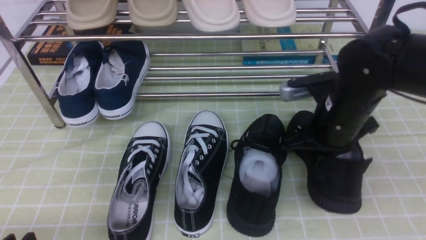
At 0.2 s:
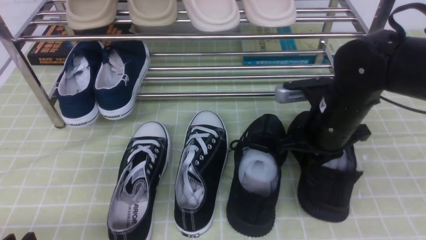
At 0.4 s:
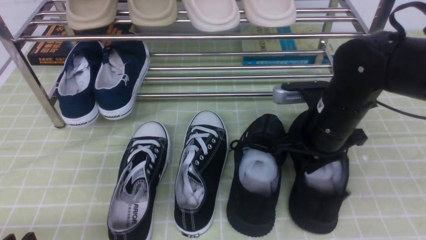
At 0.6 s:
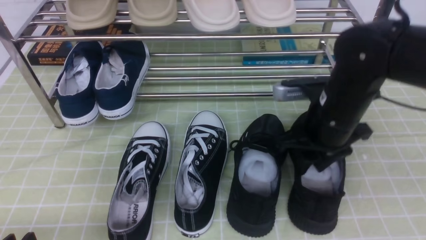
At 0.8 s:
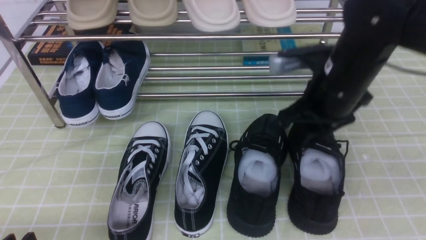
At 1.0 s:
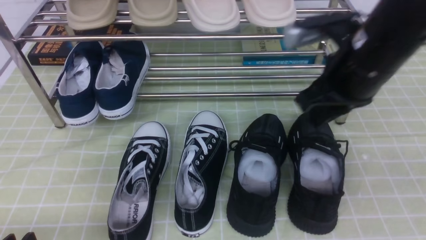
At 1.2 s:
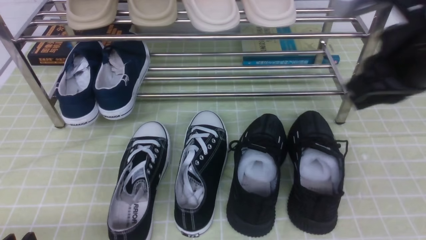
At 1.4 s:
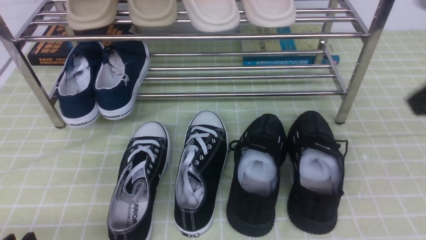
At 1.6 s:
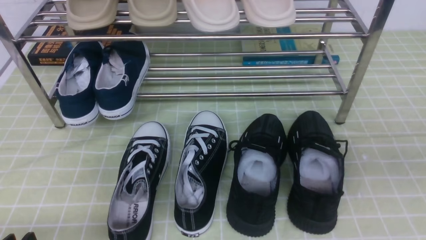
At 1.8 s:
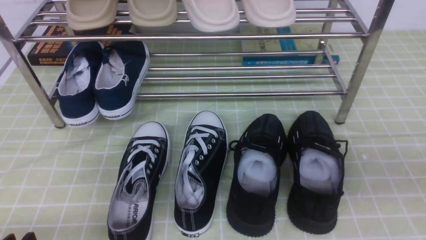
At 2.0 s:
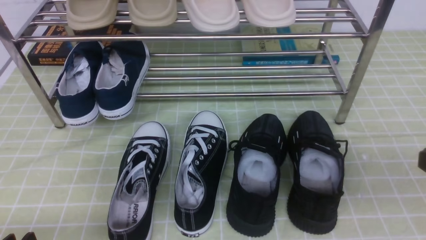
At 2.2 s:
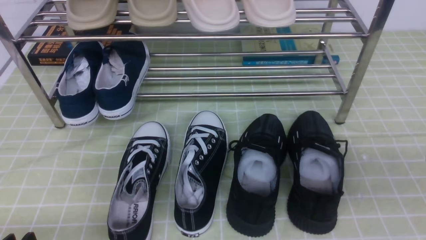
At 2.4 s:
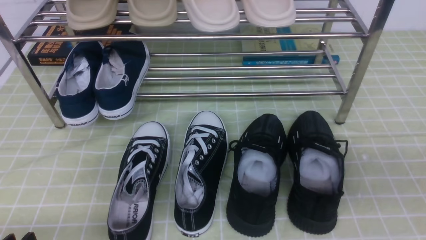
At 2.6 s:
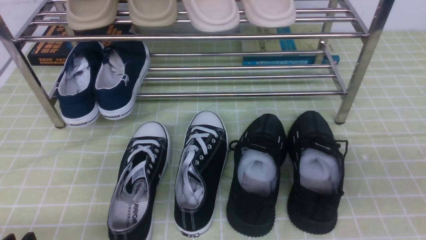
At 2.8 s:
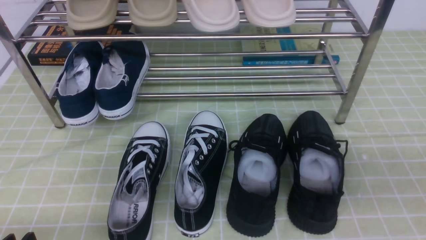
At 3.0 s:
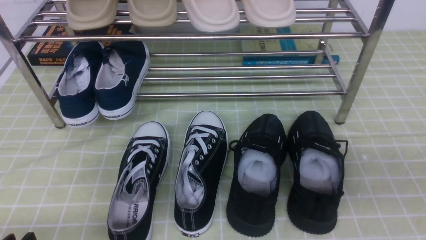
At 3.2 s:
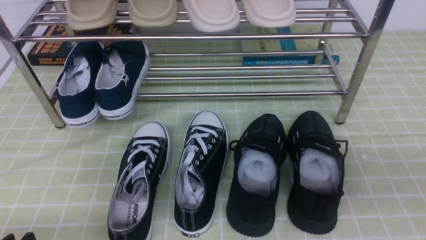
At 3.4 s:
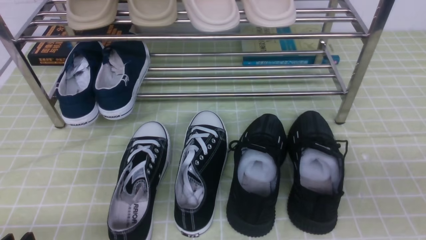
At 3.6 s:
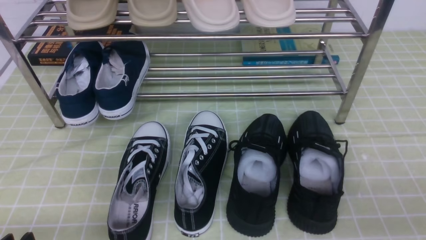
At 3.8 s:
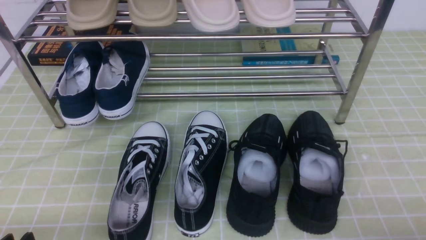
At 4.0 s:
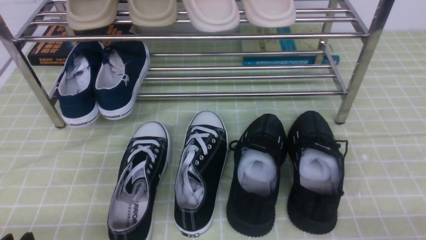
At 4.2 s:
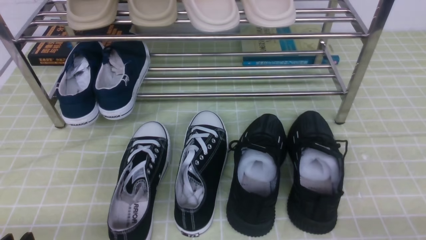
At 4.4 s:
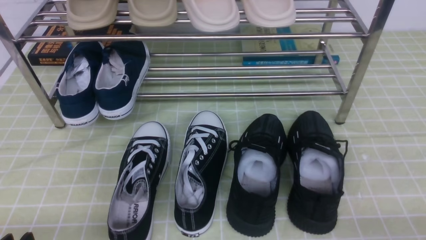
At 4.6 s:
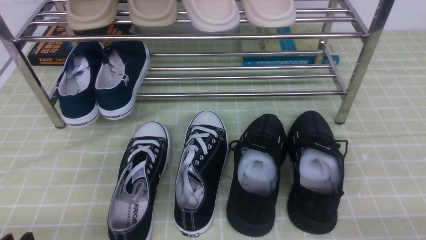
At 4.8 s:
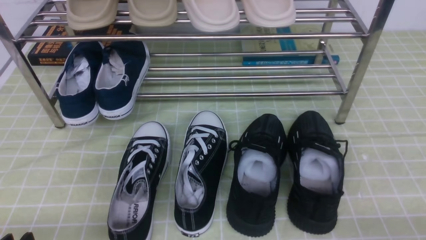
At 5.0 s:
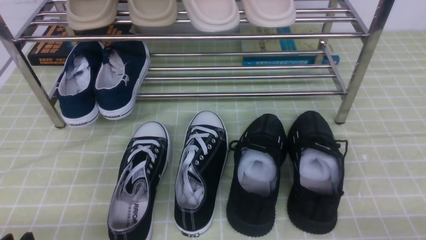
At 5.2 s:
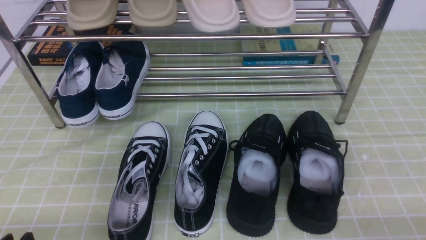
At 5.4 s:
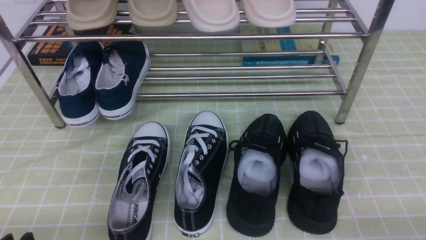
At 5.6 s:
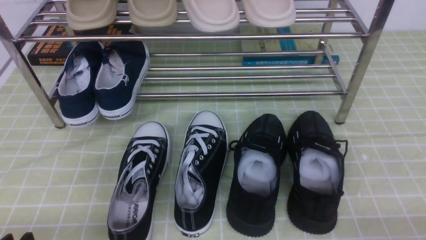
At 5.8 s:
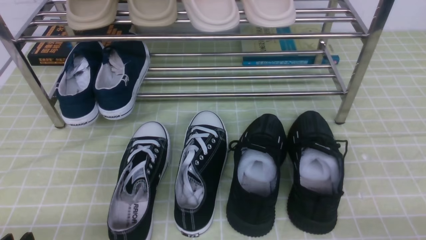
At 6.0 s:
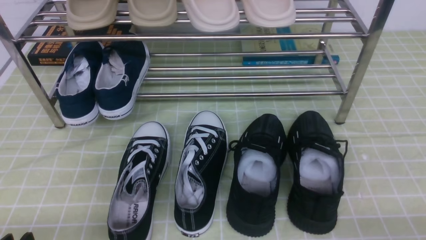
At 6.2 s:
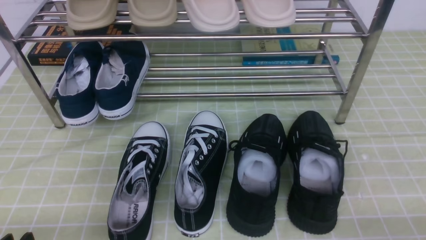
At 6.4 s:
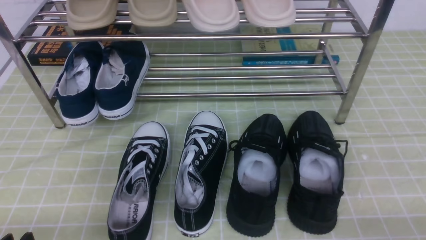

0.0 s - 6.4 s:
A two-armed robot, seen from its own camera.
0.0 s - 1.6 s: The right gripper is displaced backward, upward and to the right by approximately 25 cm, and opens, then closes again.
1.6 s - 3.2 s: The right gripper shifts about 10 cm downward.
3.2 s - 4.8 s: The right gripper shifts roughly 15 cm downward.
4.8 s - 6.4 s: Both grippers stay about where they are.

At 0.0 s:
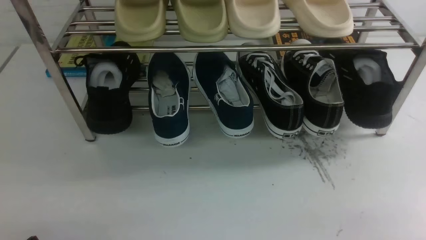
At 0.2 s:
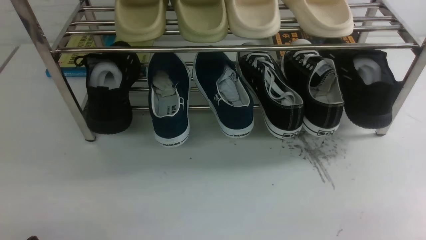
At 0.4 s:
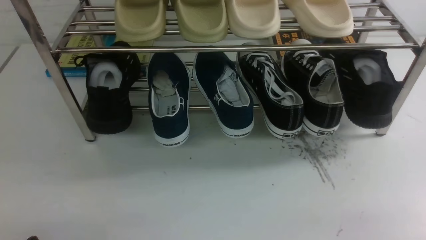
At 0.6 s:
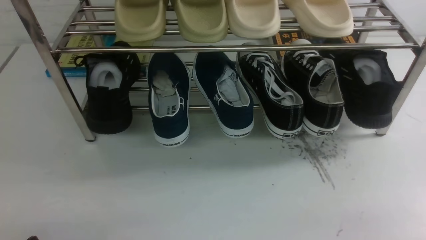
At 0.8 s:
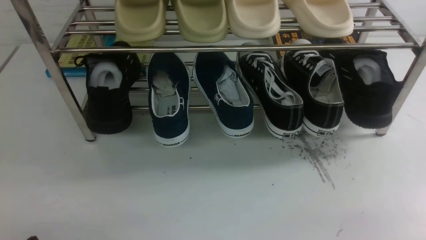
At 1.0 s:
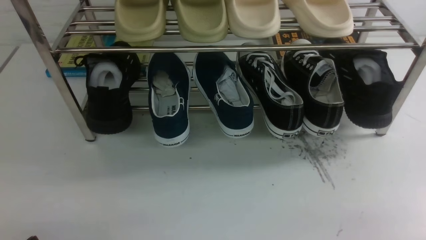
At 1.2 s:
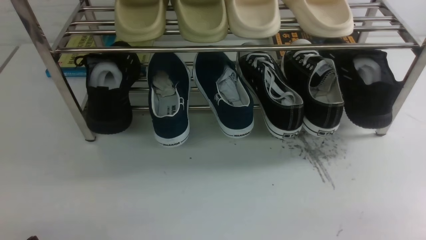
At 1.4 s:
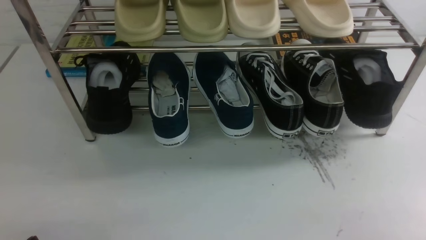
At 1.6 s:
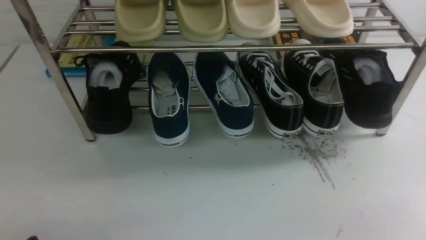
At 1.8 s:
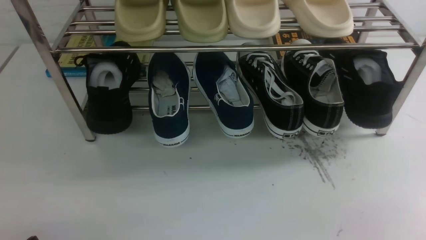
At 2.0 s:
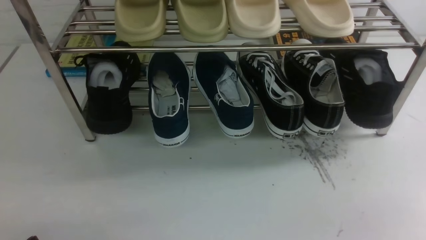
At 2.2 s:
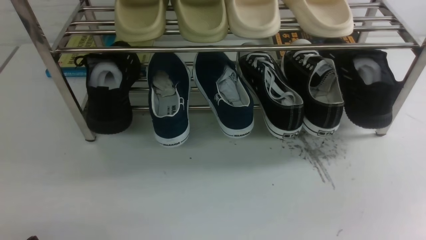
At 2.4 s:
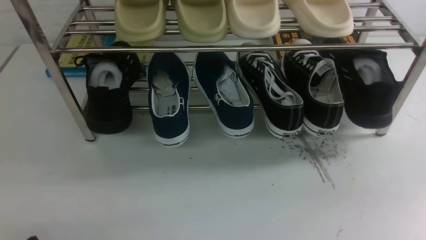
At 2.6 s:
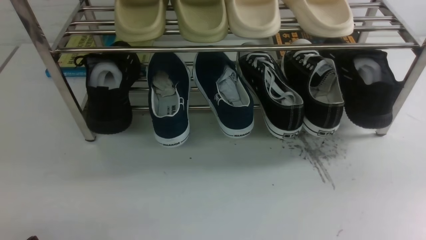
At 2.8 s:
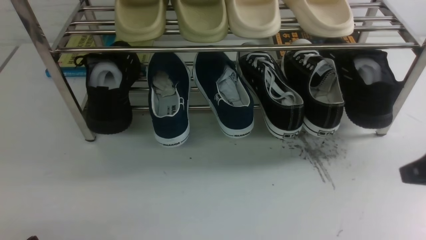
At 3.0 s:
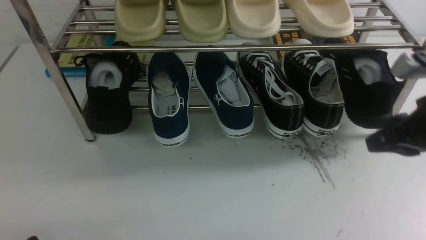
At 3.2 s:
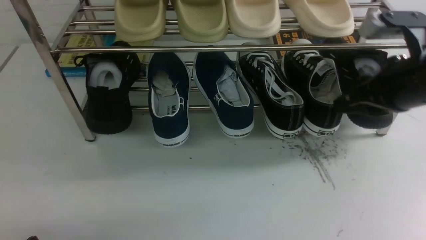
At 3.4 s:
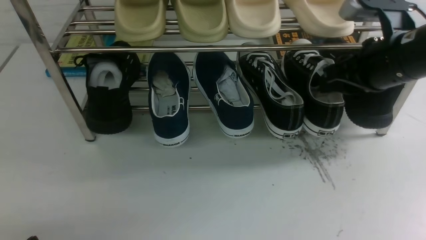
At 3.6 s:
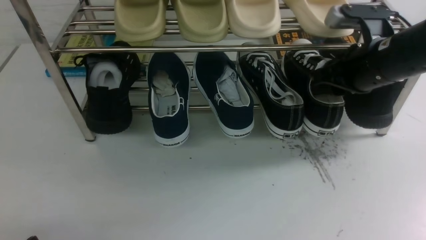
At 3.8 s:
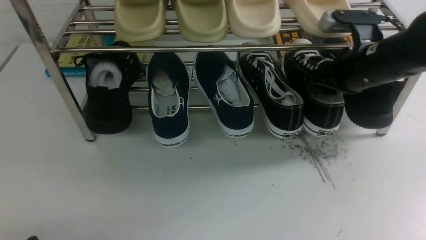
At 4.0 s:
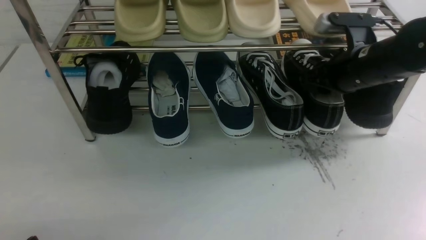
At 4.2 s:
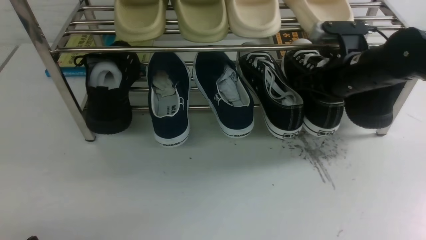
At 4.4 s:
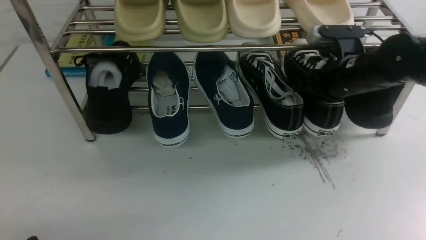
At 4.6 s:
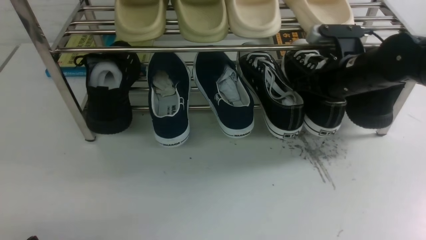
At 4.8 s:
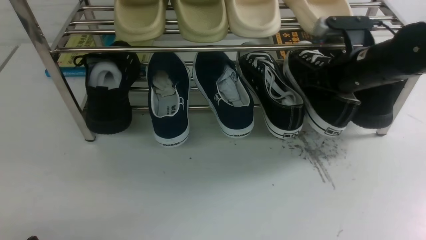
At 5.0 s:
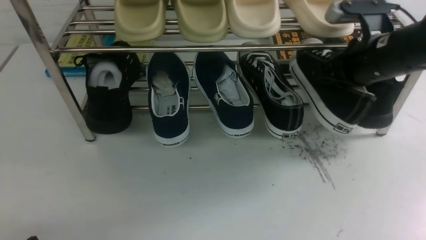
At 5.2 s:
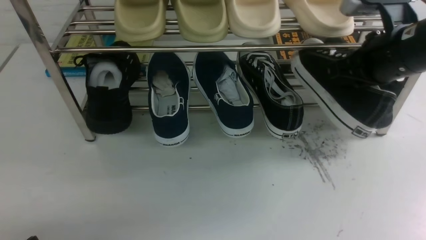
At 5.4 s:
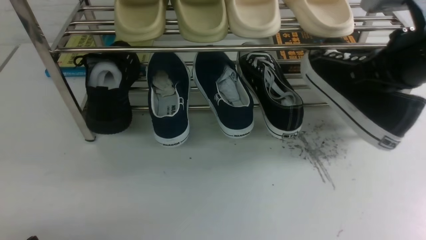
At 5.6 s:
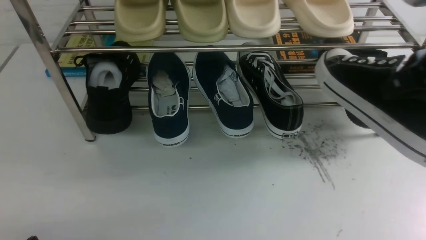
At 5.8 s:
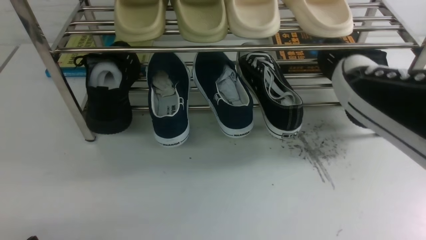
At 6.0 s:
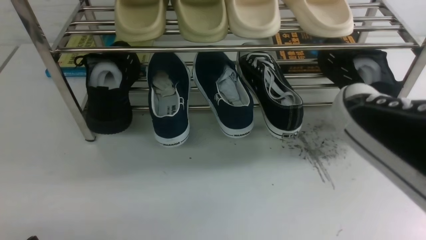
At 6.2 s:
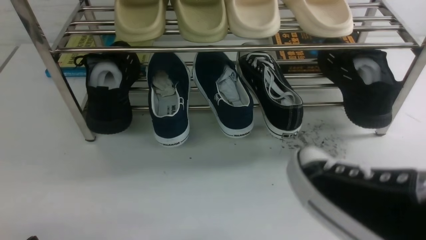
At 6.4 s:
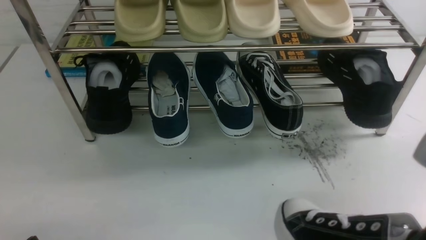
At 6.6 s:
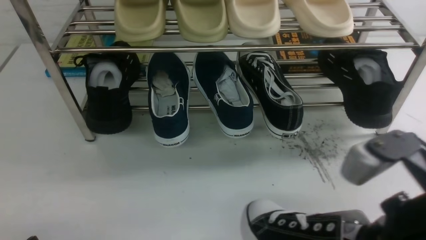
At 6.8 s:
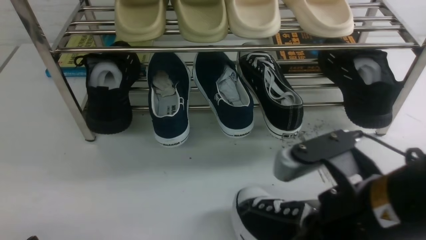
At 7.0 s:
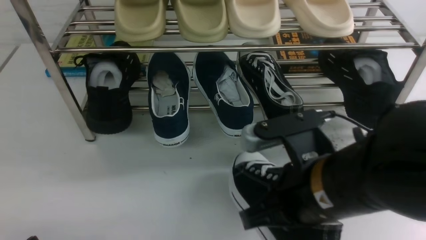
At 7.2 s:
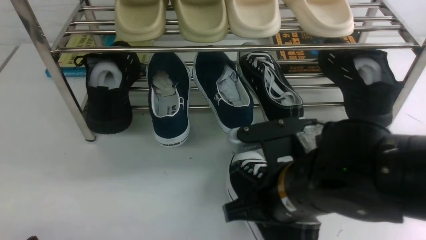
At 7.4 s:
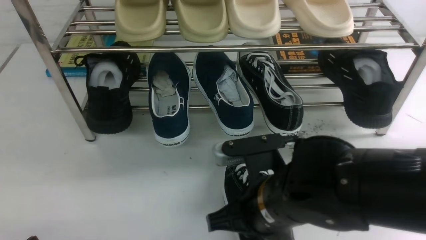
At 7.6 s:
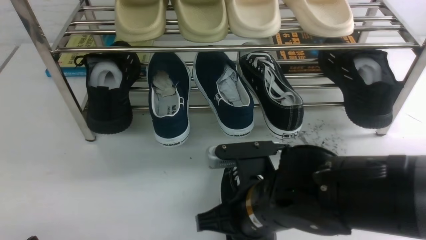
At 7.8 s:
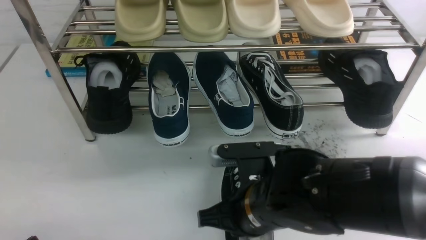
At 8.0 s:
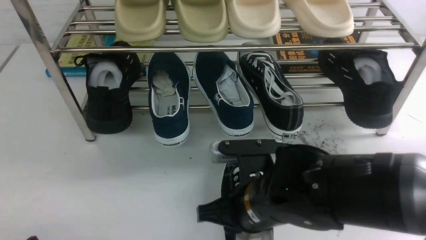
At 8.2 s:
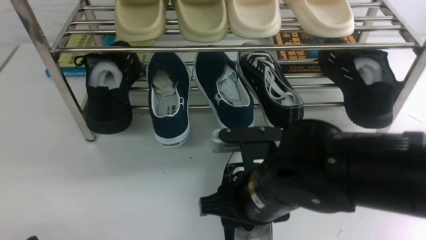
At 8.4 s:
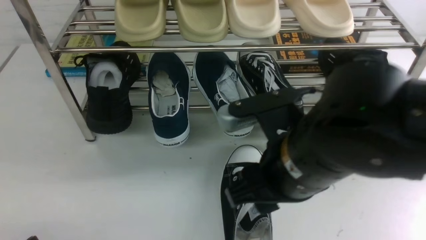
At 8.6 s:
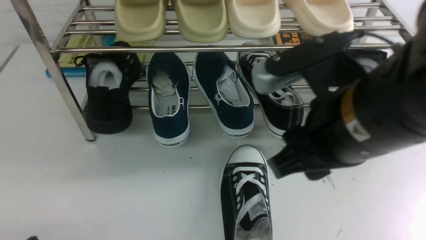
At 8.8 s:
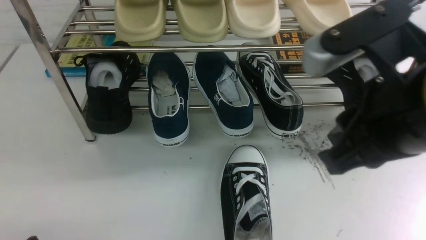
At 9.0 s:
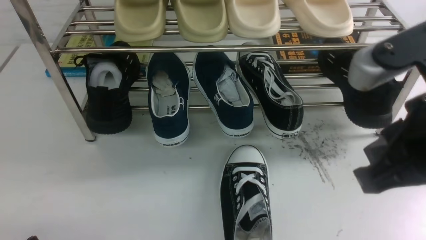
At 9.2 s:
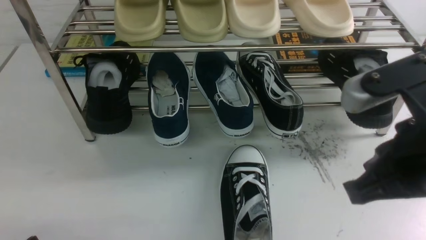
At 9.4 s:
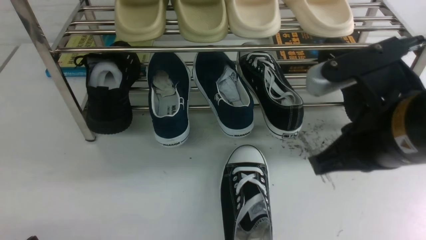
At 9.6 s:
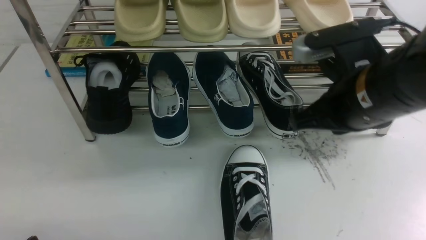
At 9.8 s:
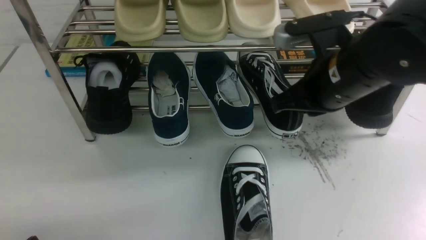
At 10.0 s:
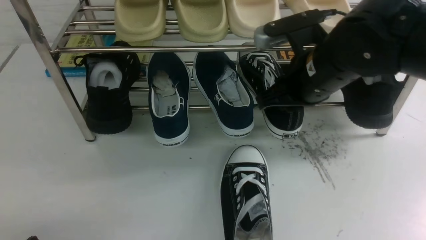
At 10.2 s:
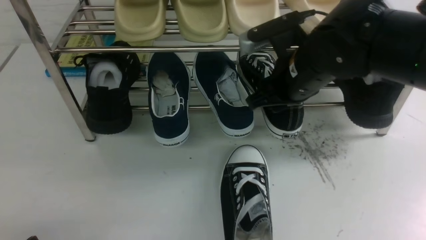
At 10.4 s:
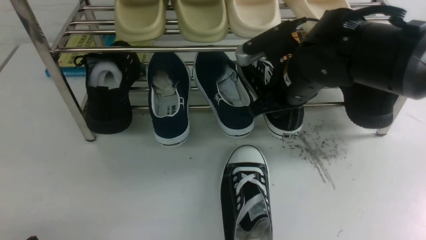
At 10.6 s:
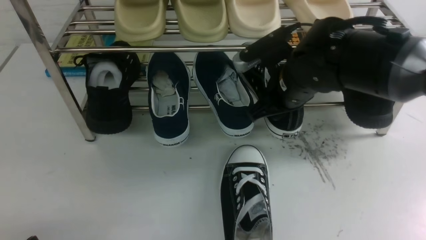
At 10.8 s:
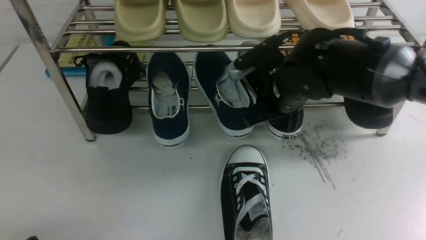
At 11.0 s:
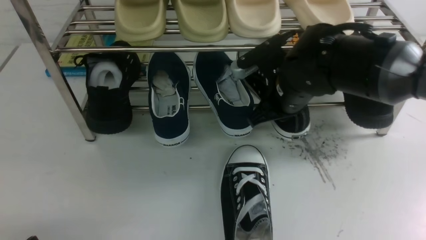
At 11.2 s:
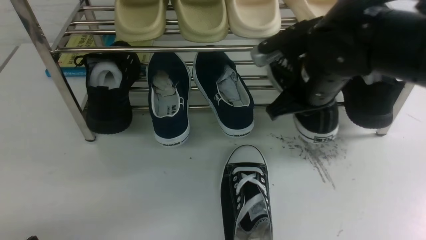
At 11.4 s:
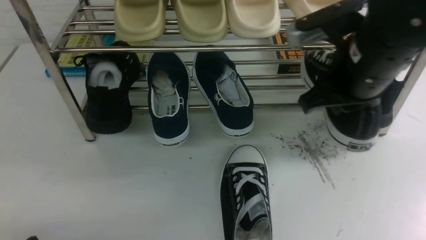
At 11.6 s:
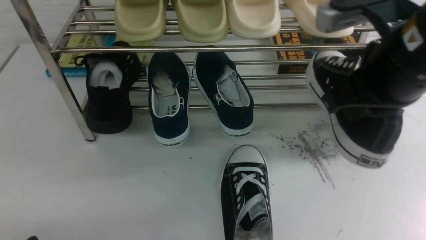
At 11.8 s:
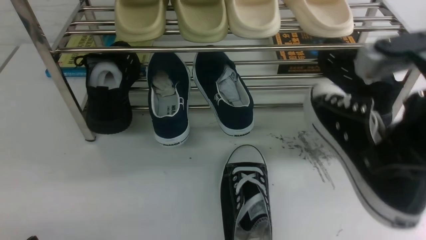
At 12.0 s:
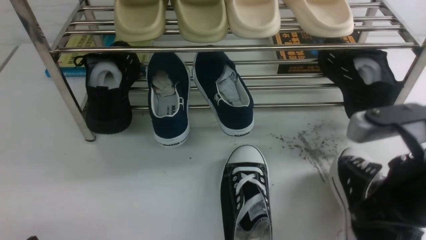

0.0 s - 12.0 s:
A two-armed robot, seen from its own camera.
Step, 0.0 s - 5.0 s: use the right arm to clamp a shoe on the right side of the shoe rack.
Step, 5.2 s - 8.4 s: use the right arm to take out the clamped shoe from the shoe rack and put it down.
Step, 8.6 s - 11.2 s: use the right arm to clamp a shoe in the middle of the shoe rack.
1.6 s - 3.0 s: The right gripper moves forward and upward, about 20 cm, and closes and opens again.
3.0 s - 4.4 s: The right gripper goes some 15 cm forward and downward.
4.4 s - 6.0 s: The right gripper moves backward and upward, roughly 30 cm.
6.0 s - 7.6 s: The right gripper travels to the left and downward by approximately 30 cm.
7.6 s - 9.0 s: The right gripper travels upward and to the right by about 20 cm, and opens and closes again.
9.0 s - 10.4 s: The right gripper shifts some 20 cm forward and downward, and opens up.
10.4 s - 12.0 s: The right gripper goes some 20 cm backward and to the right, and closes up.
